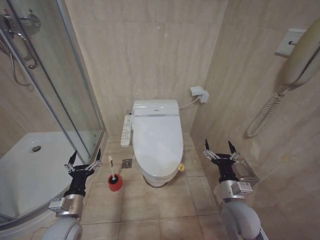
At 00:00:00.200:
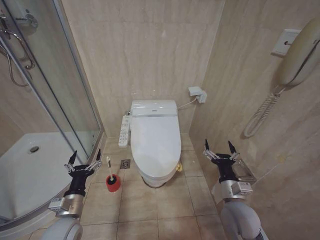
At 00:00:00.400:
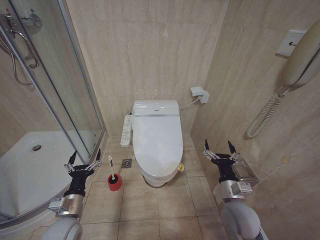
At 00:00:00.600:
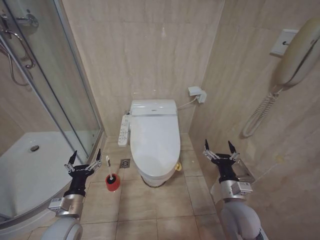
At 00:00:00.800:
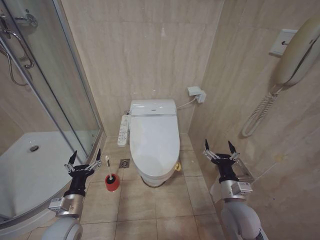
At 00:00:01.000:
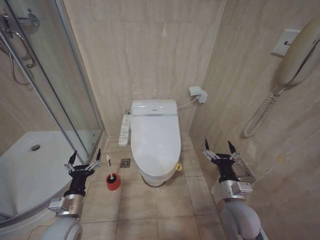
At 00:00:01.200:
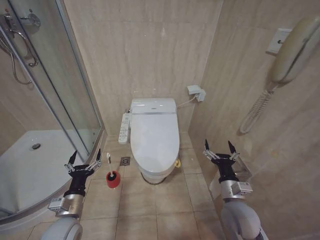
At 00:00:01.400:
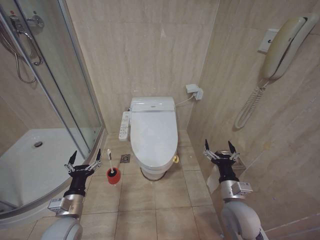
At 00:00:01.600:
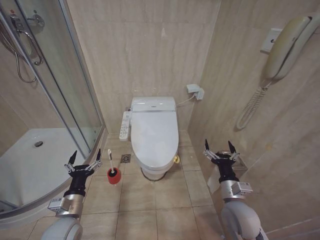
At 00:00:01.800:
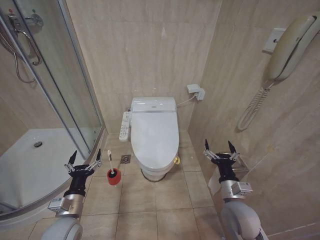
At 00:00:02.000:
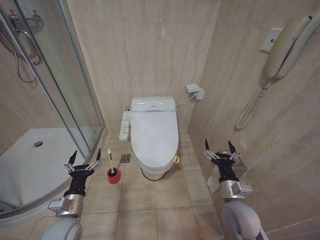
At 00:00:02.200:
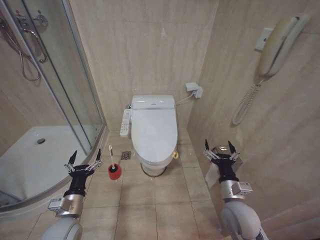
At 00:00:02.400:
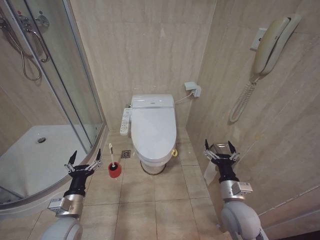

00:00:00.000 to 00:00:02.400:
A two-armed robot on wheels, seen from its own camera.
Task of the whole recording: Open the toilet lid, clean the toilet bowl with a toilet brush, close the toilet lid, and flush.
00:00:00.000 to 00:00:02.400: Neither gripper changes place.
